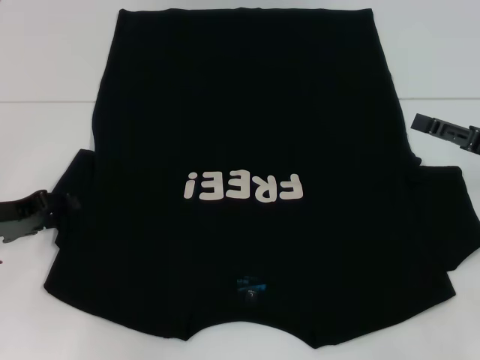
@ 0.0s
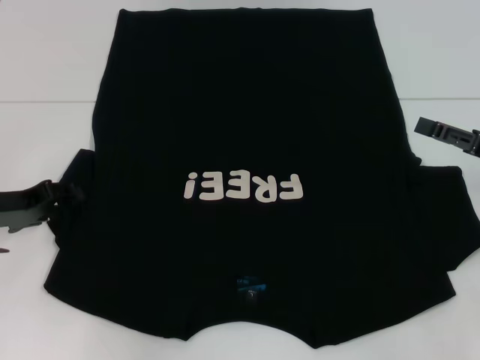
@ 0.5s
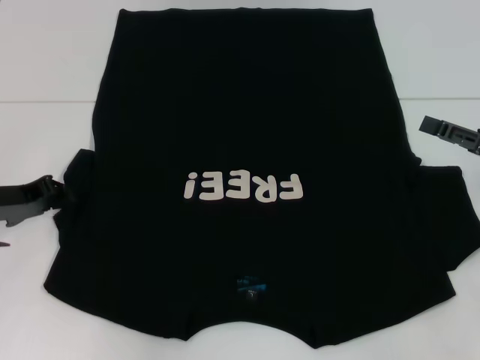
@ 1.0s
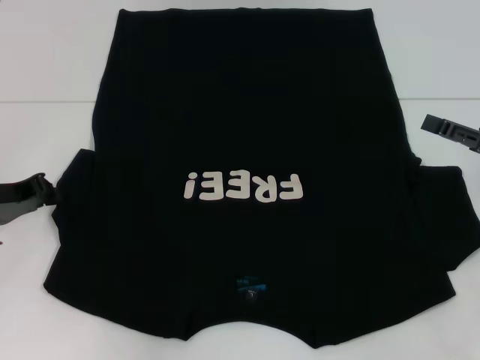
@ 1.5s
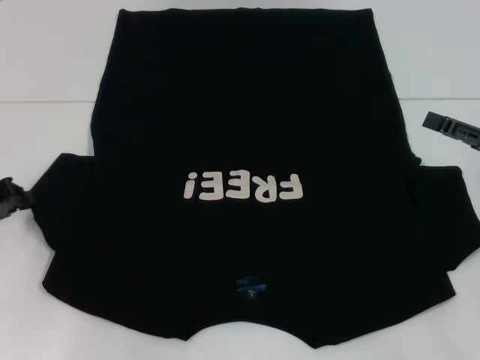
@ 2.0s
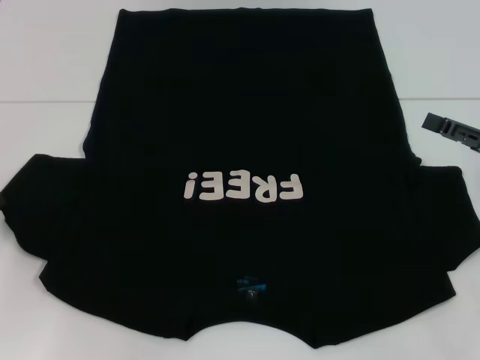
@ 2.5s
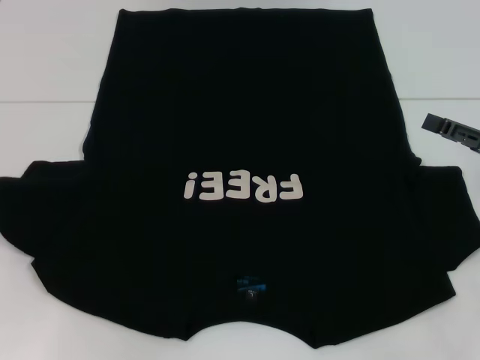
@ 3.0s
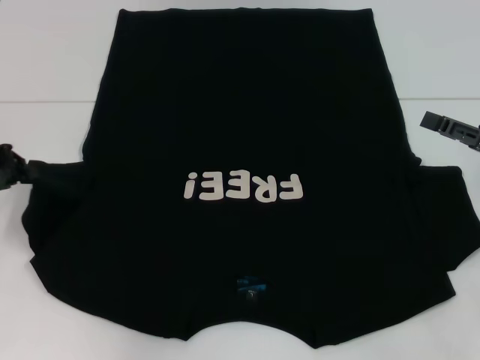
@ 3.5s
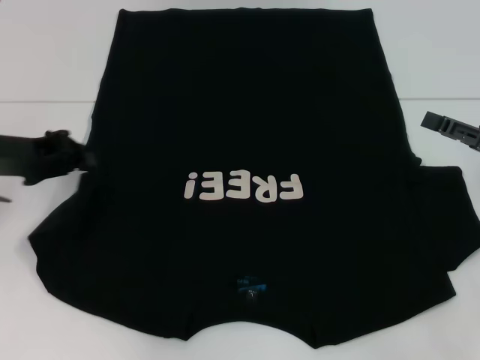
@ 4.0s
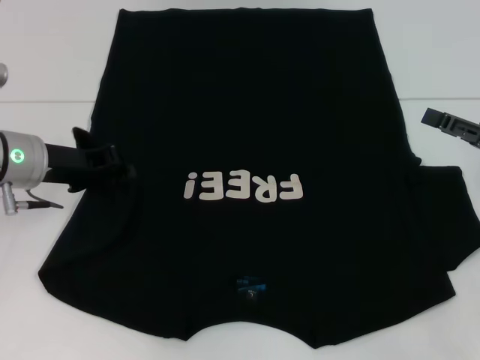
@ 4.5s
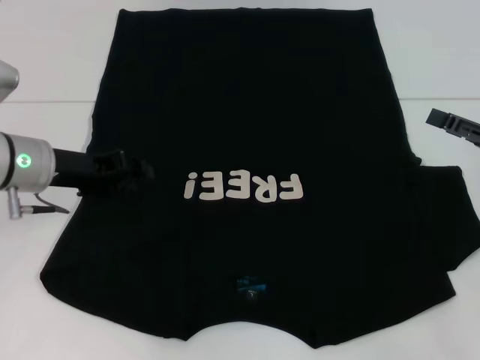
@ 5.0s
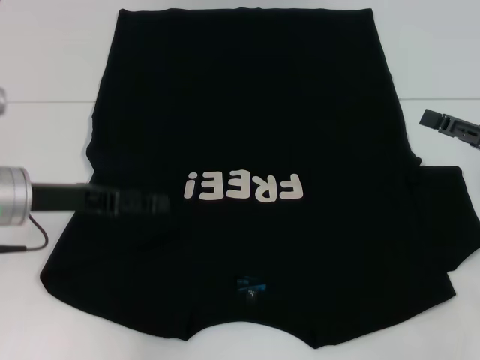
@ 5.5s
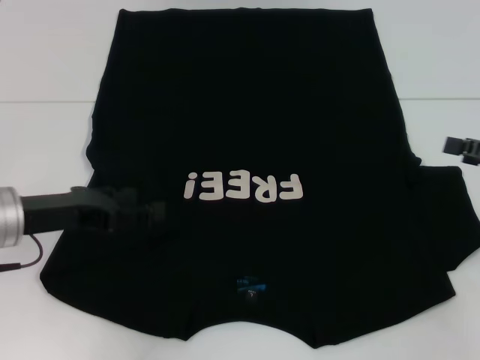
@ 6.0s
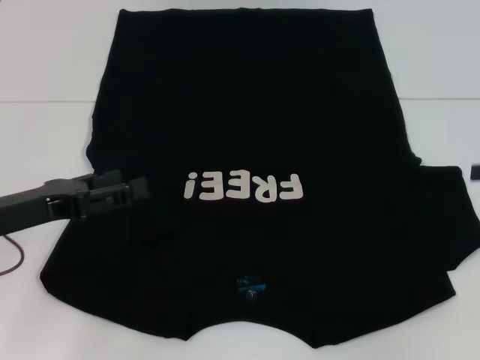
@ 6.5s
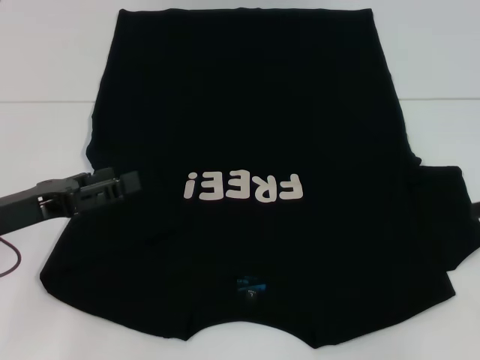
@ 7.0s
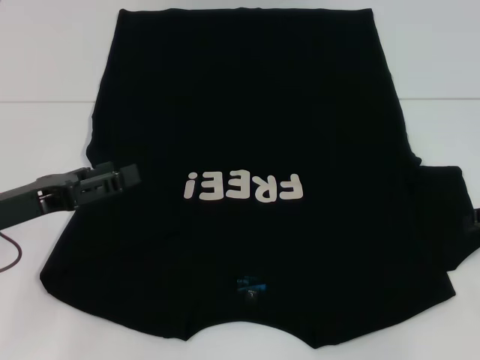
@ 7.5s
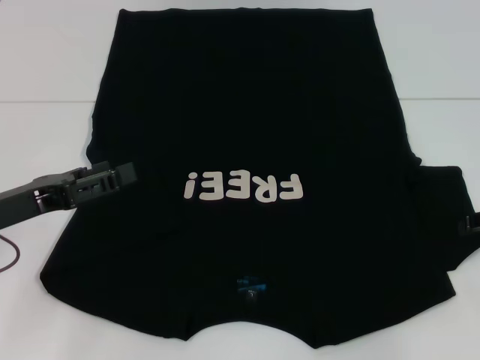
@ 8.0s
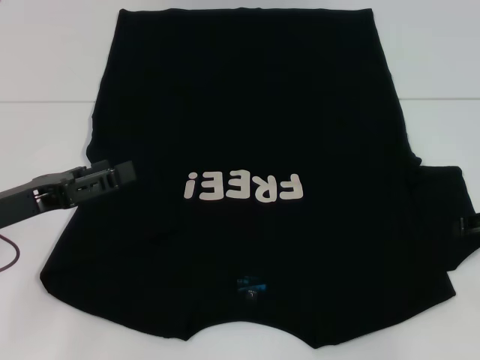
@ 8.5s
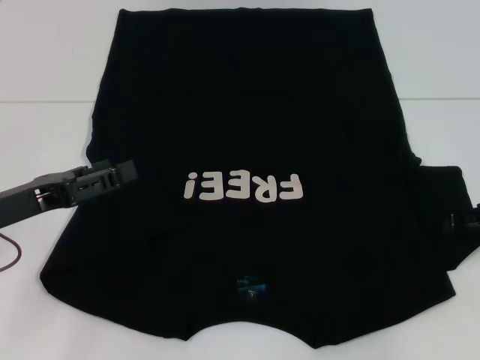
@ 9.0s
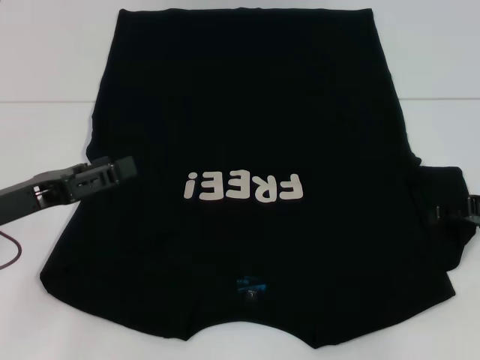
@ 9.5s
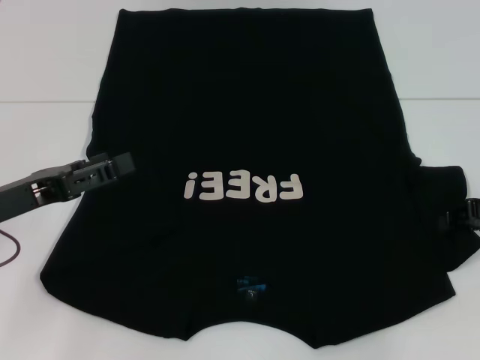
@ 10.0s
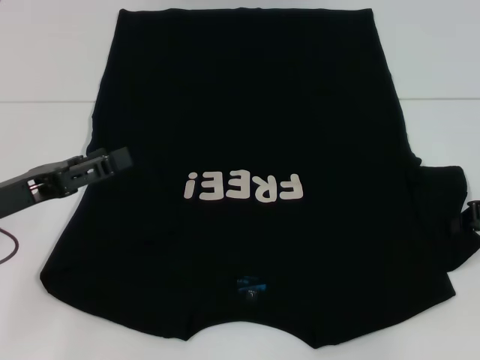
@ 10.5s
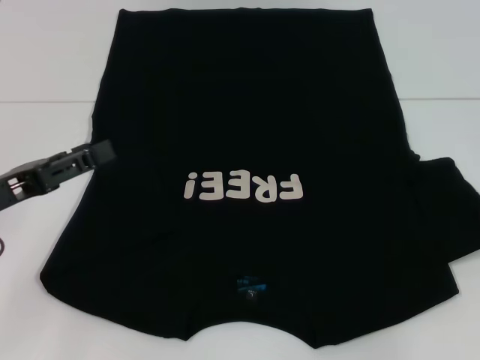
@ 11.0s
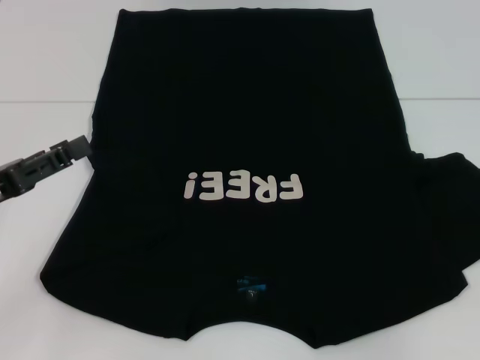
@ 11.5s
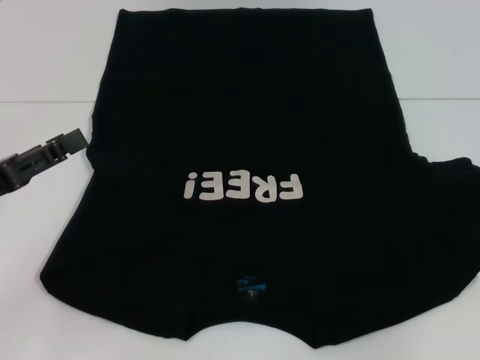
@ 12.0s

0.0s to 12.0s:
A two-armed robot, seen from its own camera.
Step, 0.0s to 5.0s: Fold the bottom left sleeve with your left hand.
0.0s to 2.0s: The left gripper closes.
2.0s to 4.0s: The left gripper heads upward, covering roughly 5 cm.
4.0s to 6.0s: The left gripper ends up roughly 5 cm from where it was, and opens.
8.0s to 10.0s: There are only small adjustments of the grippers.
10.0s to 12.0s: The right gripper goes about 5 cm to the right, and closes up.

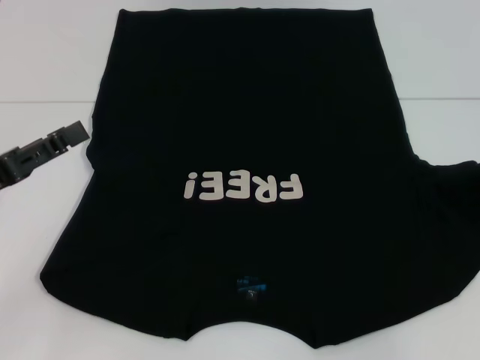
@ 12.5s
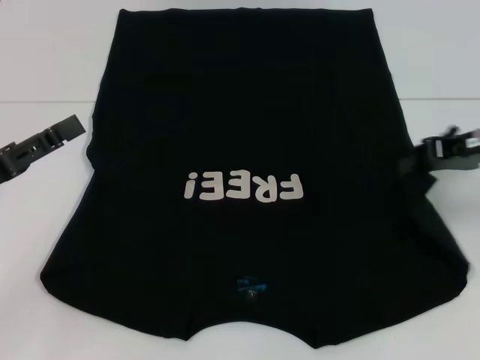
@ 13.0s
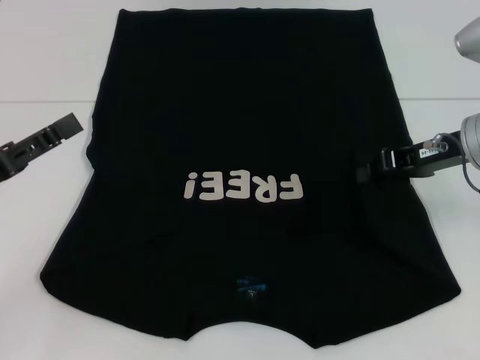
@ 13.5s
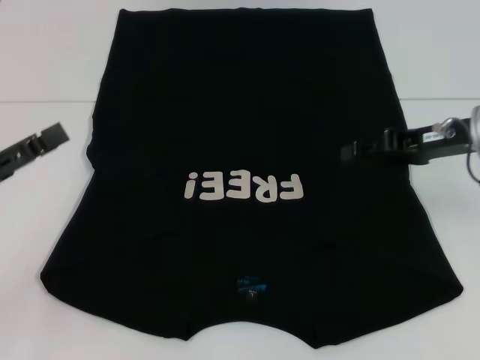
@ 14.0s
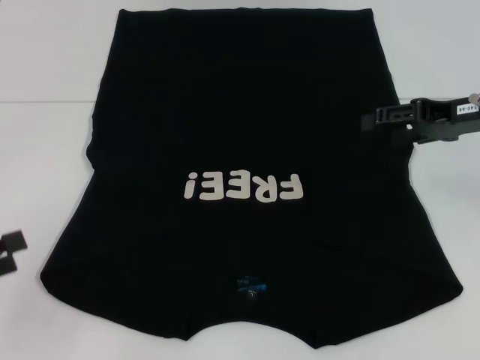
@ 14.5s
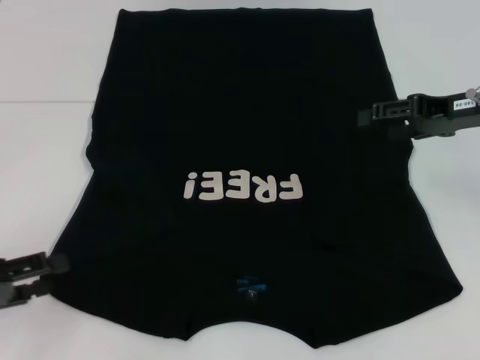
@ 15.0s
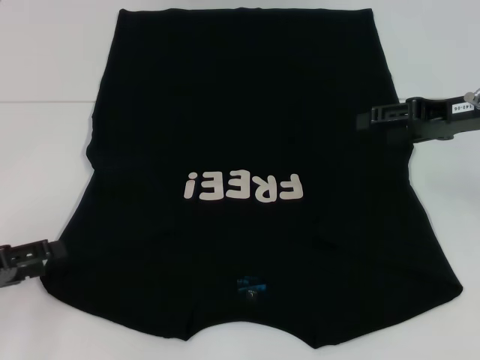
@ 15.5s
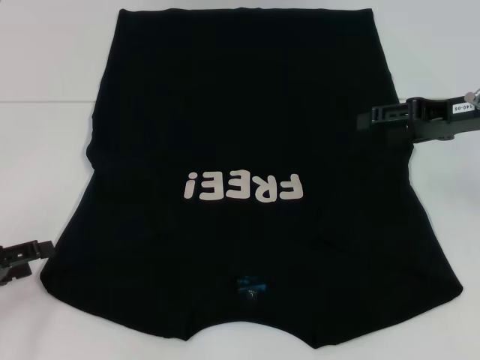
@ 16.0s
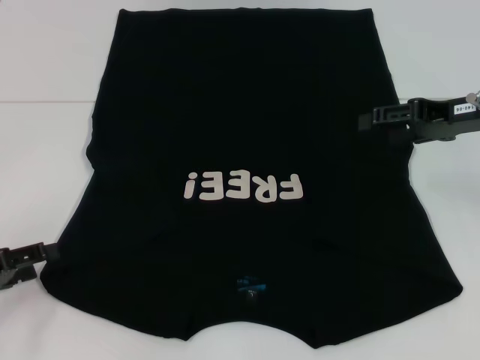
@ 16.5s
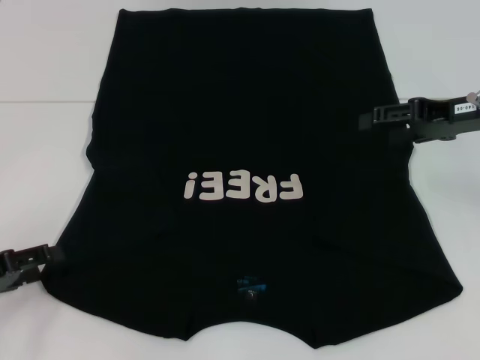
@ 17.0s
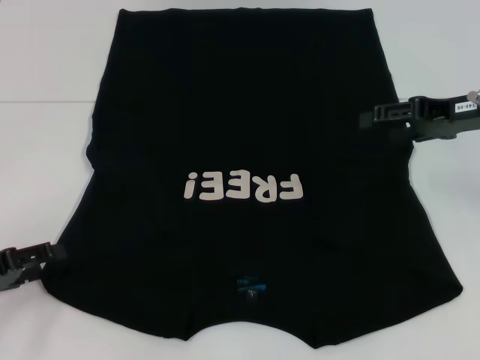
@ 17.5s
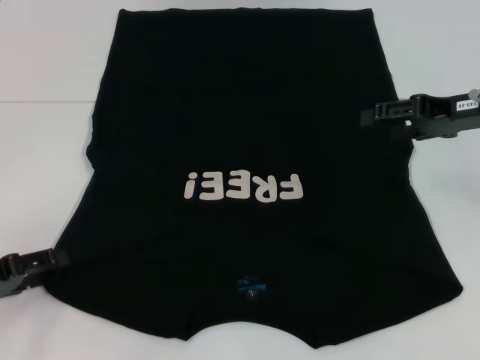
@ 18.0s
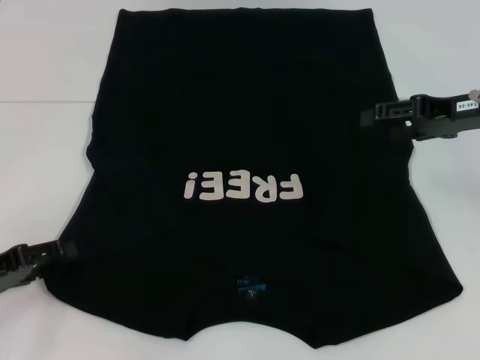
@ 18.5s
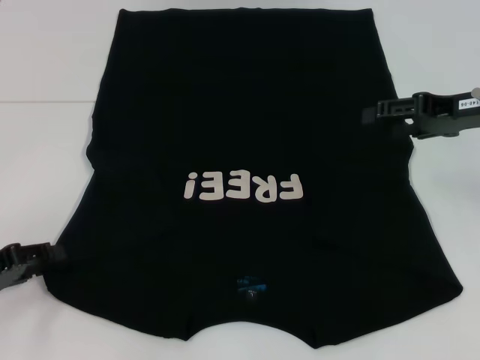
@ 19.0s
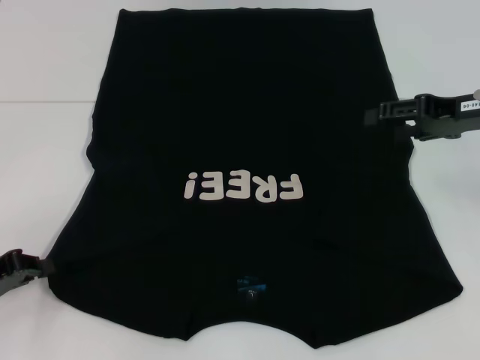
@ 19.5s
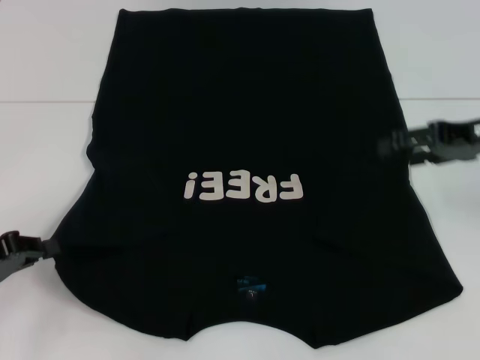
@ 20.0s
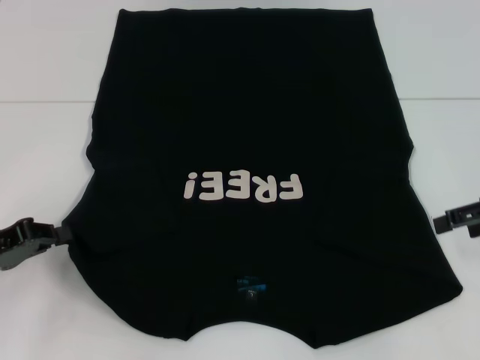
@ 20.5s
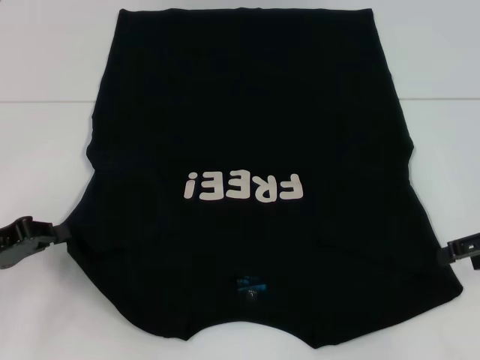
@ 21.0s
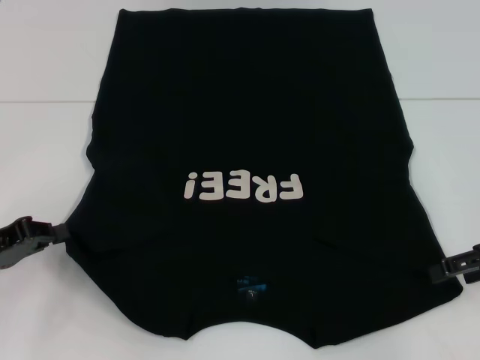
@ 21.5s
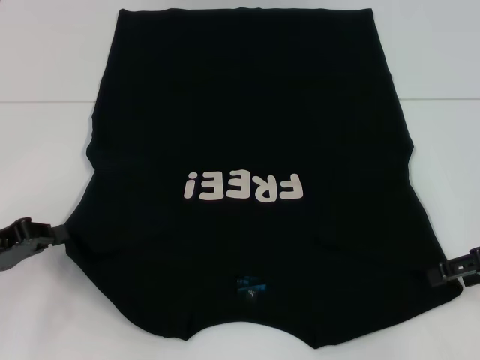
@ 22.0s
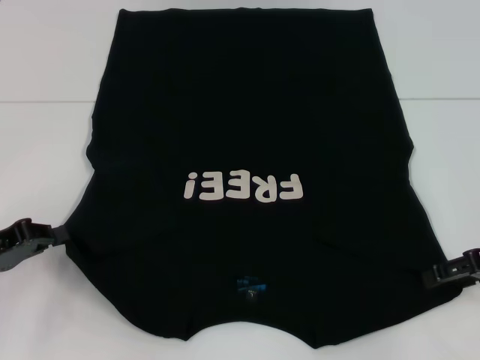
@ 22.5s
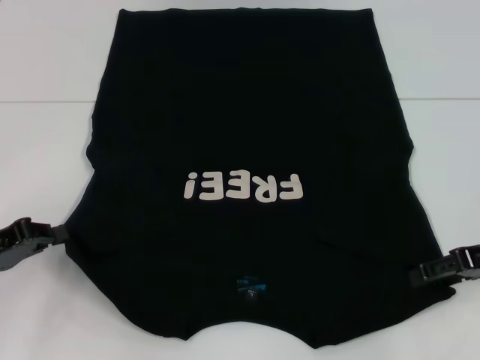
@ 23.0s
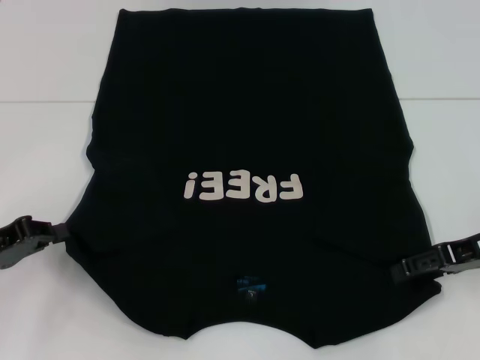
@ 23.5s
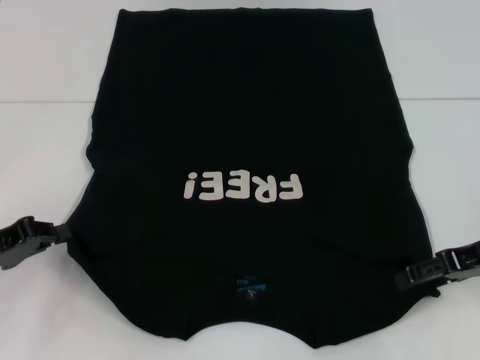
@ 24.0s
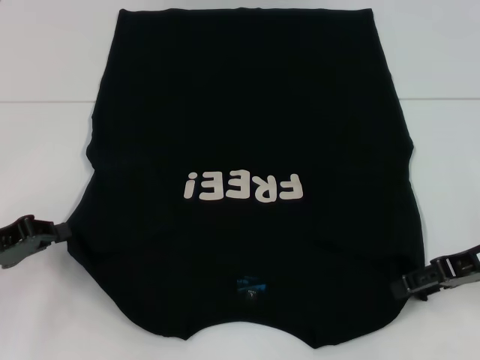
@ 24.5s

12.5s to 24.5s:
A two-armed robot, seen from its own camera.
Step, 14.0s to 19.5s: Grab the bottom left corner with your left hand.
12.5s to 14.5s: The right gripper is displaced to the left by about 10 cm, and opens, while the left gripper moves to the left and backward, some 10 cm.
14.5s to 16.5s: The left gripper goes some 5 cm downward.
16.5s to 18.5s: The grippers move only a little.
18.5s to 20.5s: The right gripper travels to the right by about 5 cm. Meanwhile the left gripper closes up.
20.5s to 22.5s: The right gripper changes place by some 5 cm.
22.5s to 24.5s: There are only small adjustments of the grippers.

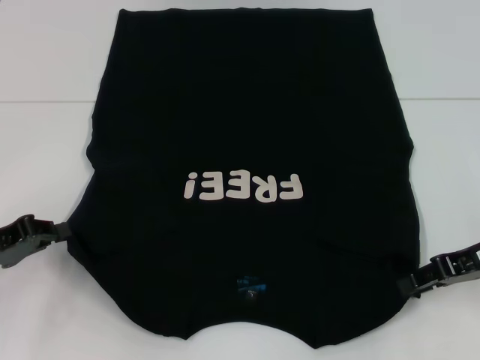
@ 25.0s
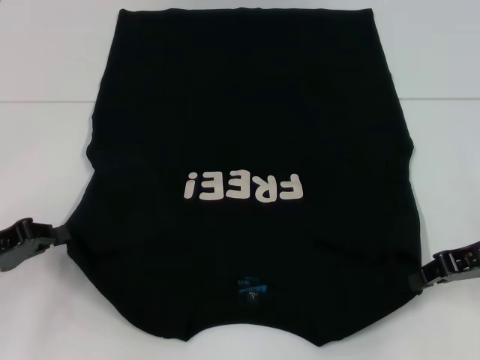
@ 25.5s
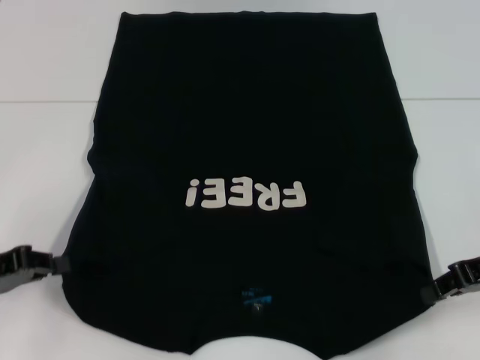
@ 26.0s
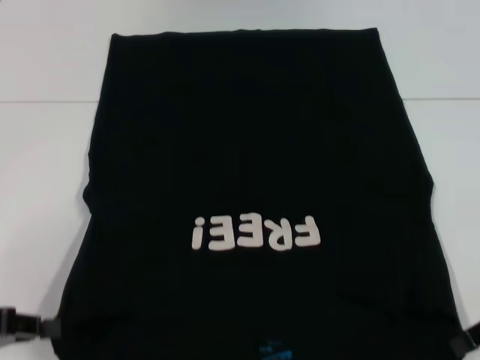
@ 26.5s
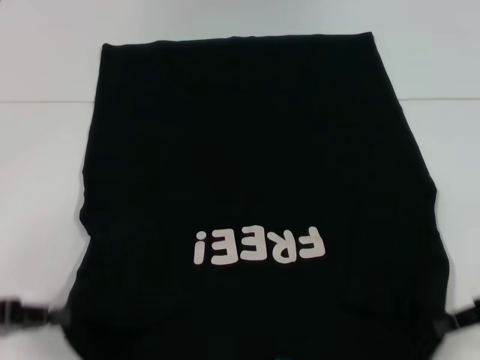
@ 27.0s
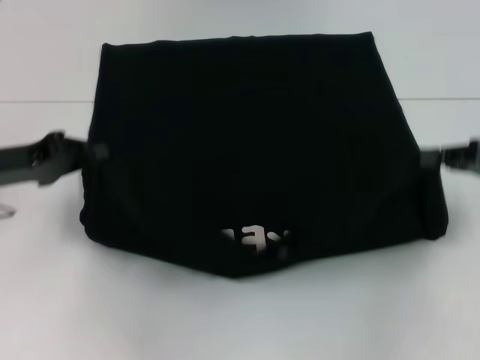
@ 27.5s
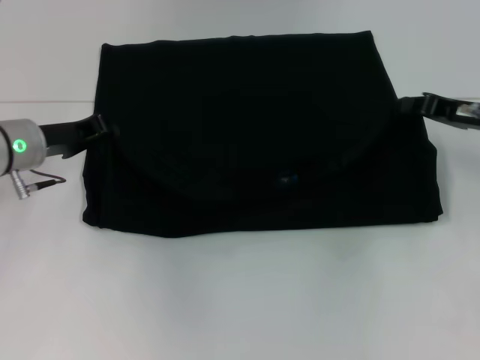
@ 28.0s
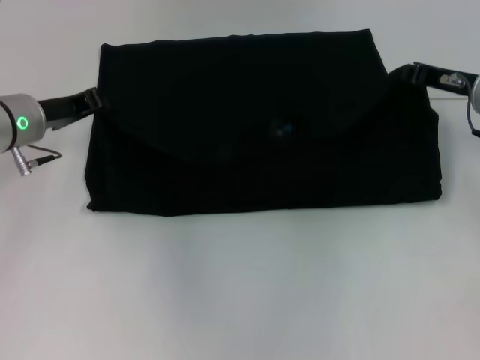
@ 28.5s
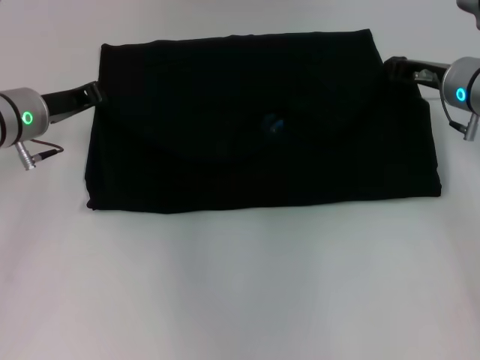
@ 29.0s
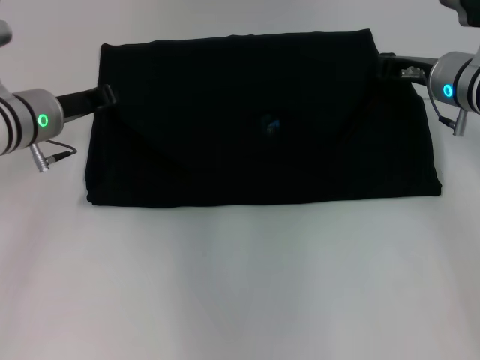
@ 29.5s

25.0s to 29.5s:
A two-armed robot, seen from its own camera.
25.0s to 27.0s: The right gripper moves some 5 cm, and closes; the left gripper heads backward, covering approximately 5 cm.
27.0s to 29.5s: The right gripper is displaced forward and to the left by about 20 cm. Meanwhile the left gripper heads forward and to the right, covering about 20 cm.
